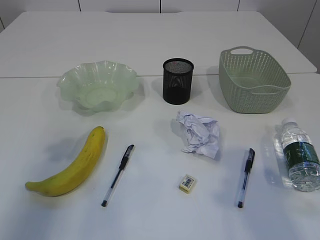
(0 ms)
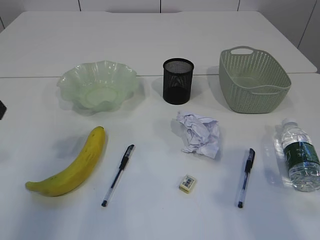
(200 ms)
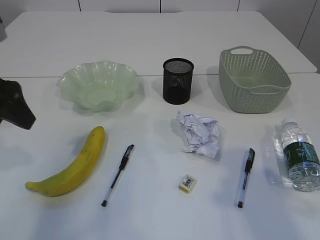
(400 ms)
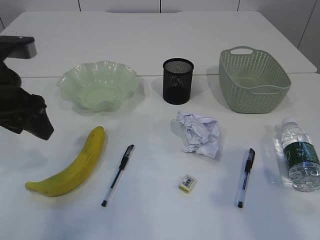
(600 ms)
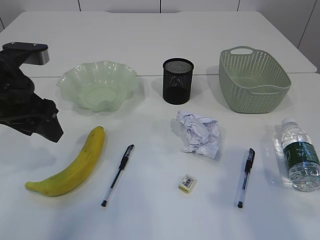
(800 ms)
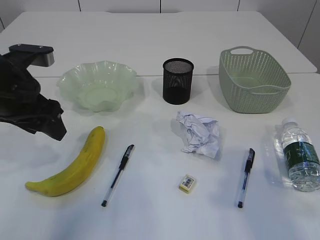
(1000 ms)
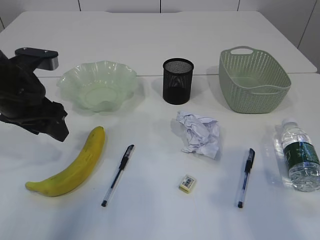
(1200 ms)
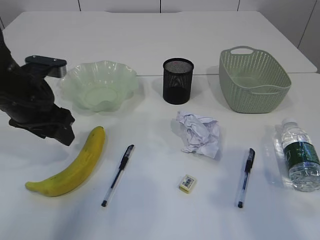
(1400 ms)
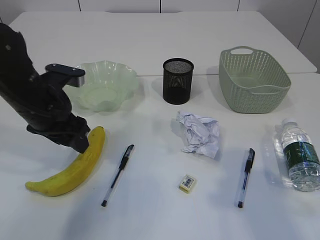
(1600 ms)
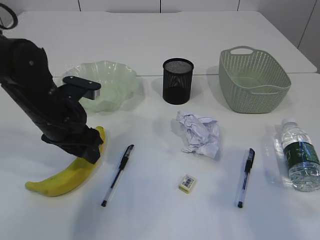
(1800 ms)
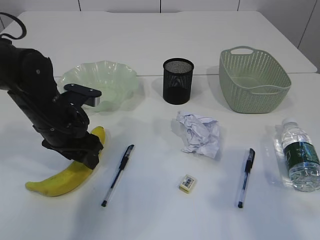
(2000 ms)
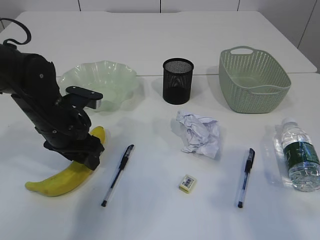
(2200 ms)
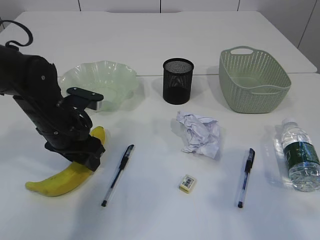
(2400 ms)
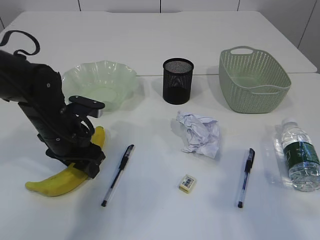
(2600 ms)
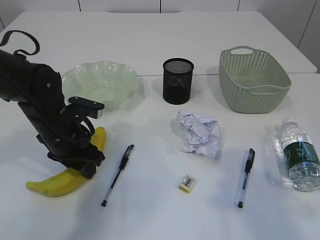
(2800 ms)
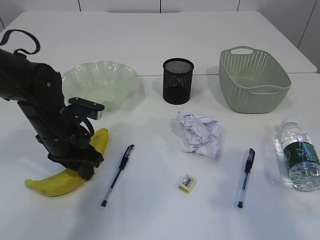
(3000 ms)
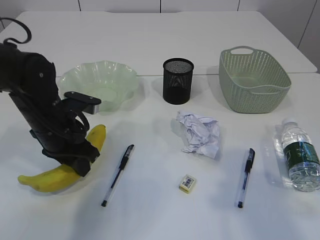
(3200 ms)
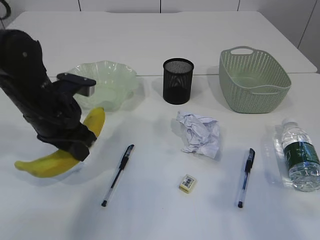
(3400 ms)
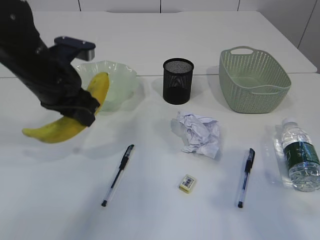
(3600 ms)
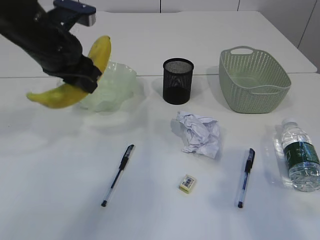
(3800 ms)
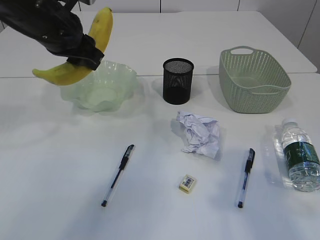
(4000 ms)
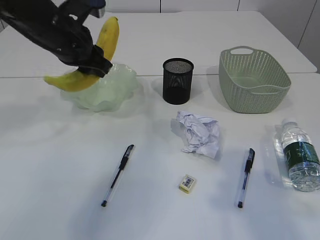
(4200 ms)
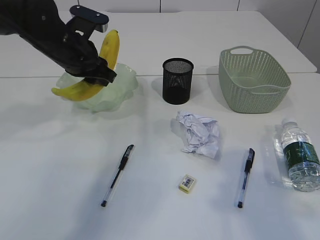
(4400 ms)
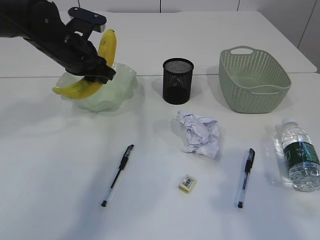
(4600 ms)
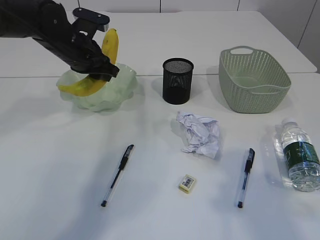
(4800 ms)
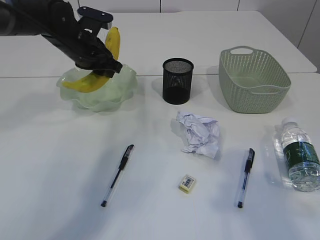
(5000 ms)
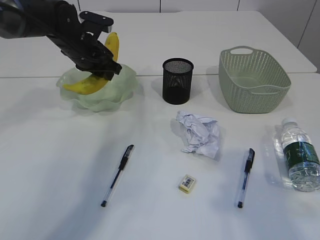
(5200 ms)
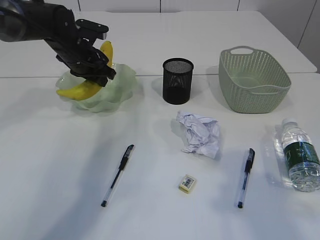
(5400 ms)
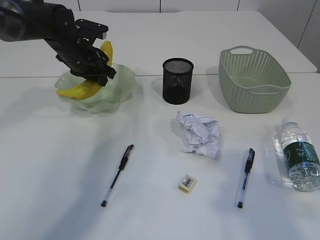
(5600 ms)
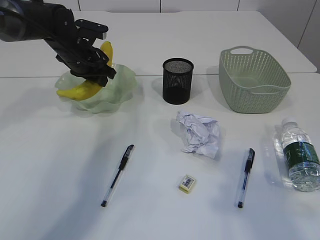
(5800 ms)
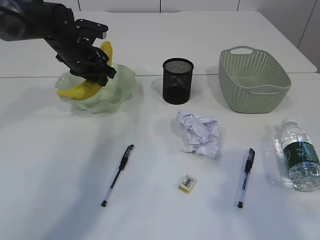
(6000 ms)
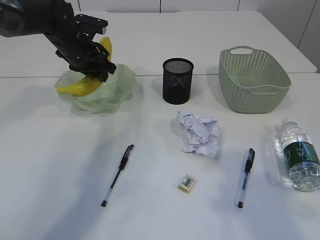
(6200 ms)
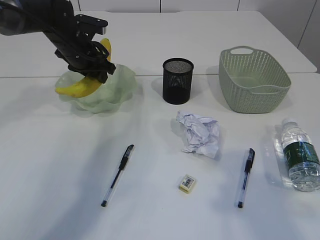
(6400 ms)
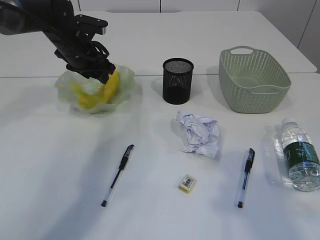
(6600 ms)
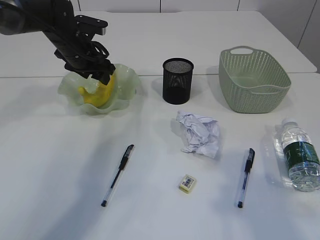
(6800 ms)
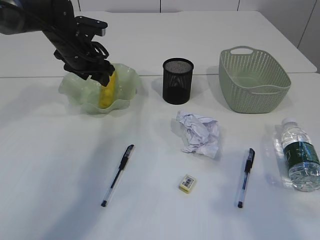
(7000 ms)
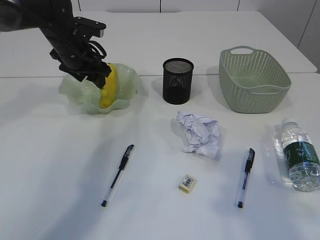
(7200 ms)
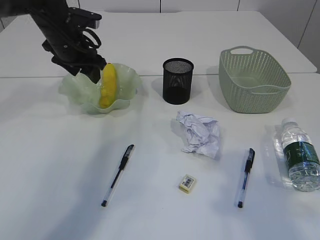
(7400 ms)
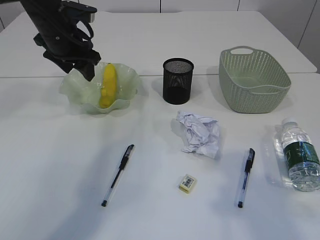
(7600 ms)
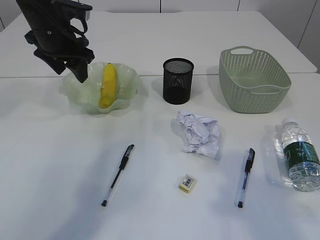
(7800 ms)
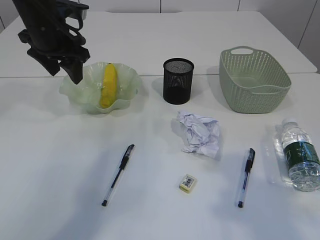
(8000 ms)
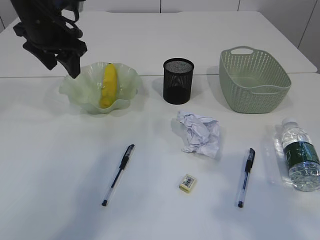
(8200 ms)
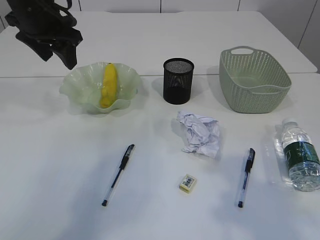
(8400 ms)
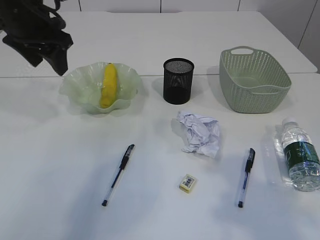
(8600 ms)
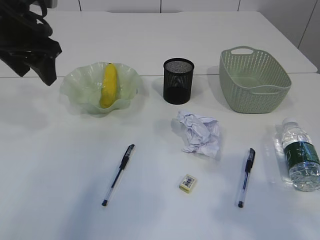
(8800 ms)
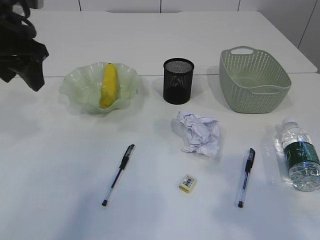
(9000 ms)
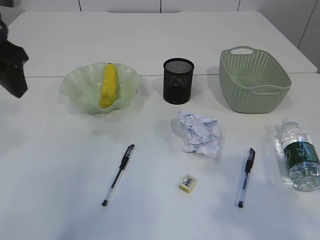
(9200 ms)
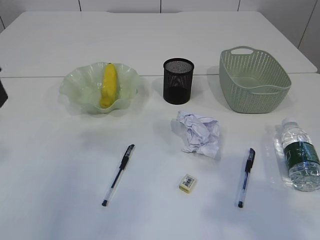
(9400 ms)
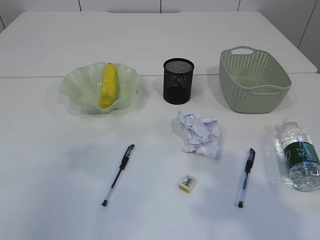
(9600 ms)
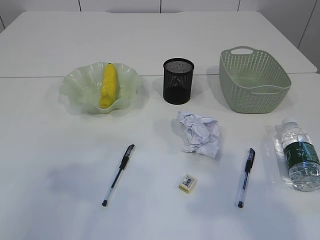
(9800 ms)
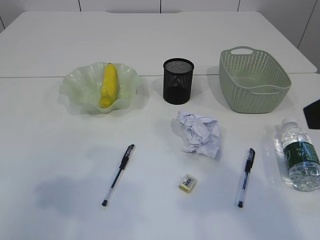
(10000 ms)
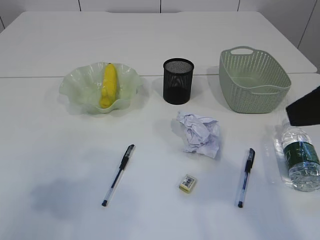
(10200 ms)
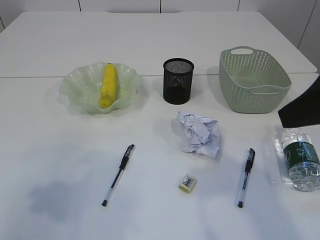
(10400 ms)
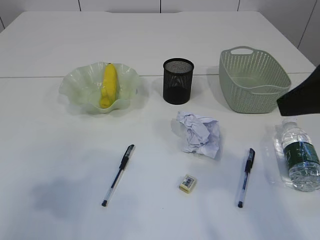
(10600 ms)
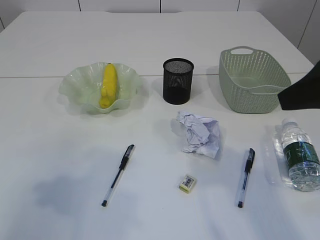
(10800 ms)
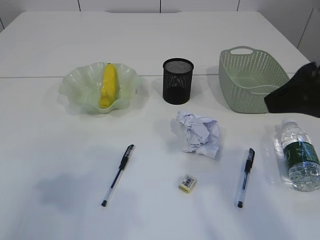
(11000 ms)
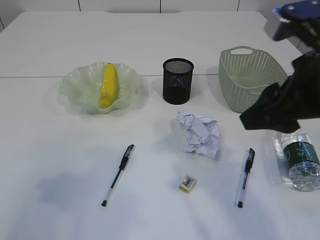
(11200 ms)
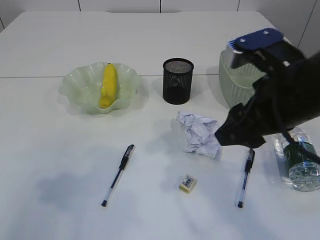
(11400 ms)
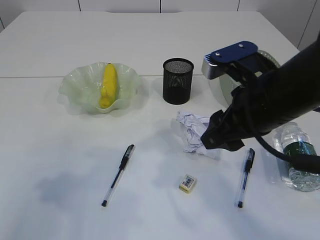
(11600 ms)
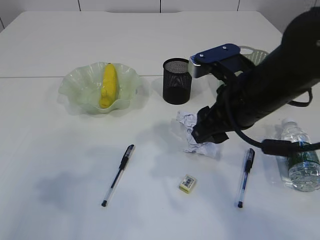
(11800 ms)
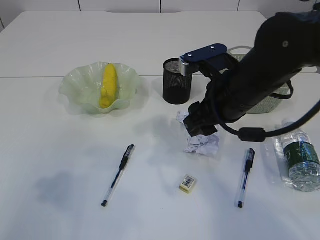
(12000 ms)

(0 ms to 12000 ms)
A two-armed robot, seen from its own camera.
Step, 3600 ms - 7800 ms: Place the banana in the plate.
0 ms - 1600 ms: The left gripper travels downward, to the right and forward by approximately 20 cm.
1600 ms - 3000 ms: The left gripper moves downward, about 5 cm, and closes its fingers.
3000 ms - 4400 ms: The left gripper heads upward and forward, covering about 15 cm.
4400 ms - 6000 ms: The left gripper is displaced forward by some 10 cm.
6000 ms - 7600 ms: The left gripper goes about 5 cm upward, and opens up.
7600 ms - 9000 ms: The left gripper is displaced backward and upward by approximately 15 cm.
9000 ms - 10400 ms: The right gripper goes about 5 cm forward; the left gripper goes some 20 cm backward.
10400 ms - 12000 ms: The right gripper is displaced forward, downward and to the left by roughly 20 cm.

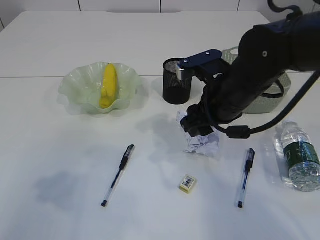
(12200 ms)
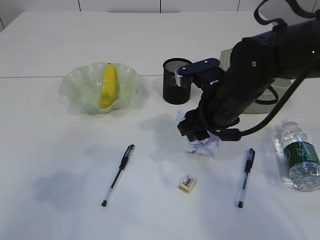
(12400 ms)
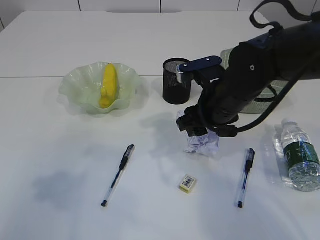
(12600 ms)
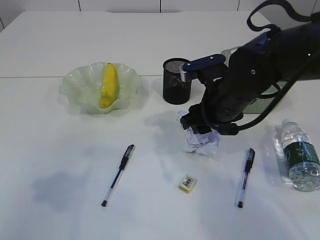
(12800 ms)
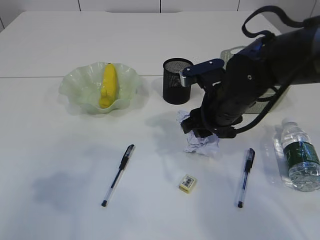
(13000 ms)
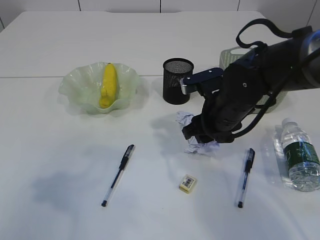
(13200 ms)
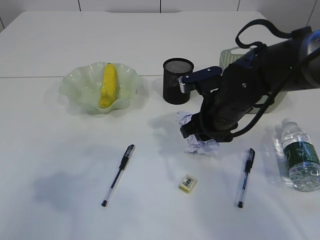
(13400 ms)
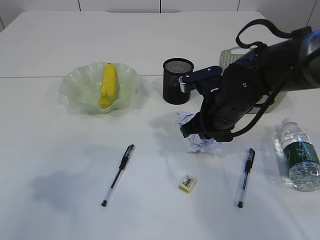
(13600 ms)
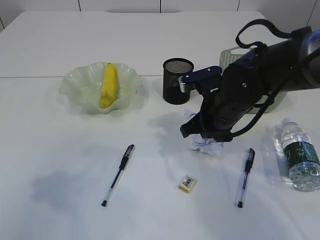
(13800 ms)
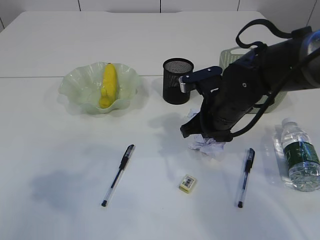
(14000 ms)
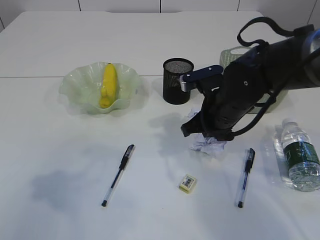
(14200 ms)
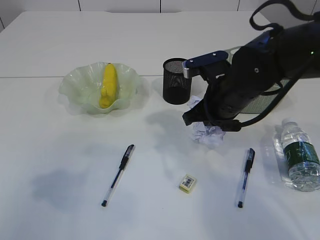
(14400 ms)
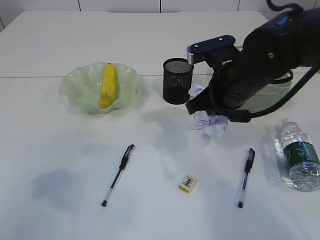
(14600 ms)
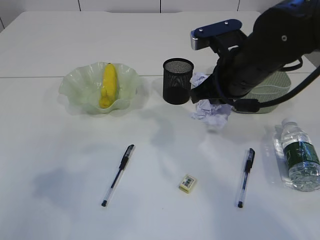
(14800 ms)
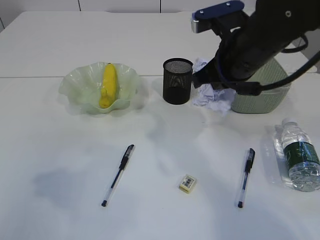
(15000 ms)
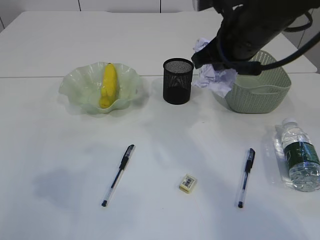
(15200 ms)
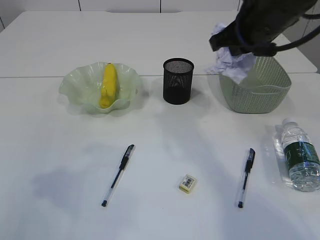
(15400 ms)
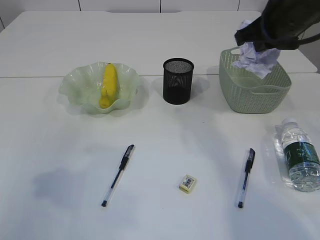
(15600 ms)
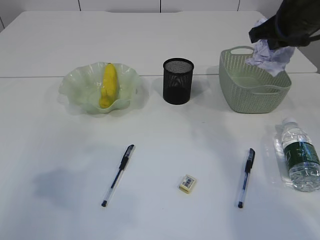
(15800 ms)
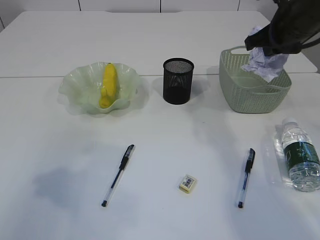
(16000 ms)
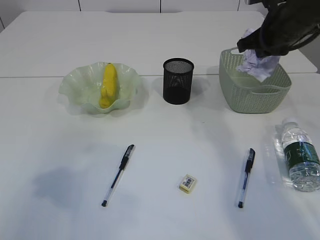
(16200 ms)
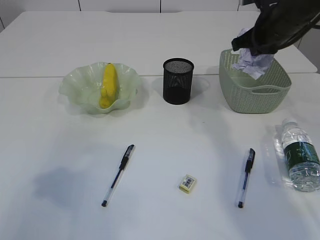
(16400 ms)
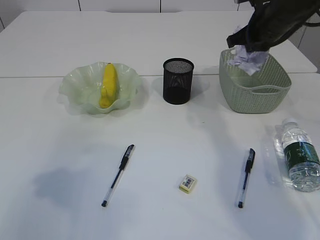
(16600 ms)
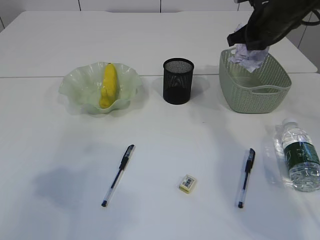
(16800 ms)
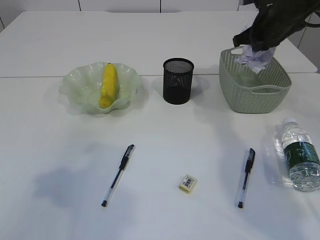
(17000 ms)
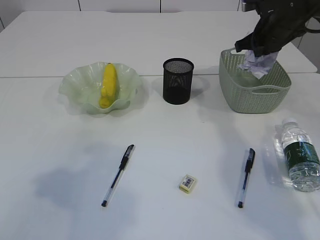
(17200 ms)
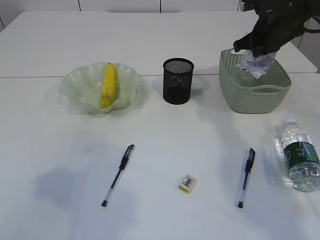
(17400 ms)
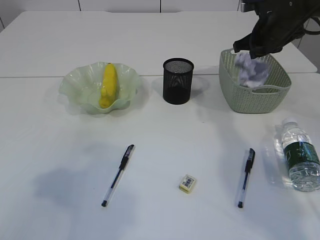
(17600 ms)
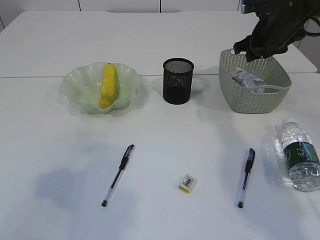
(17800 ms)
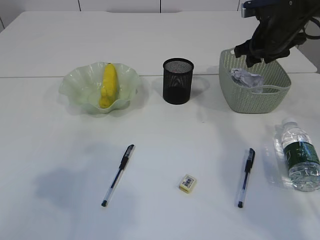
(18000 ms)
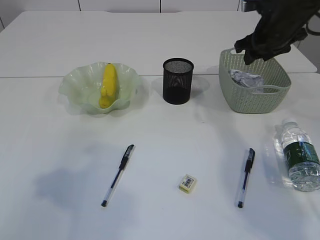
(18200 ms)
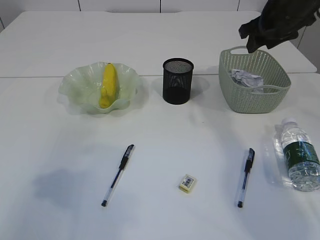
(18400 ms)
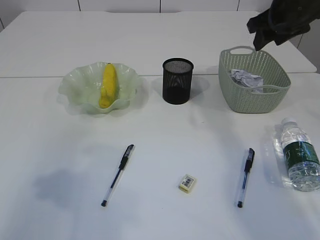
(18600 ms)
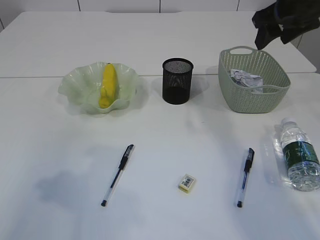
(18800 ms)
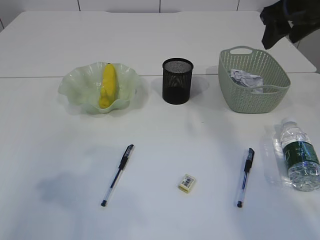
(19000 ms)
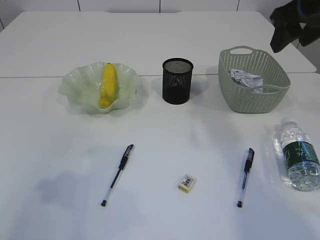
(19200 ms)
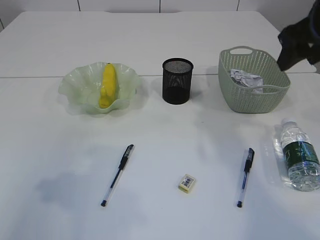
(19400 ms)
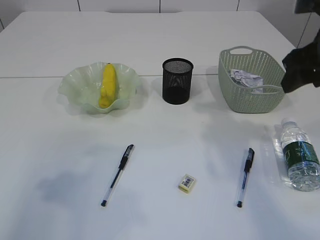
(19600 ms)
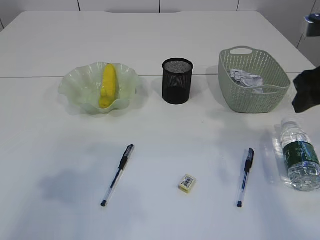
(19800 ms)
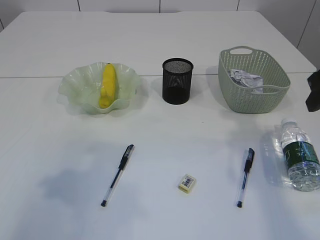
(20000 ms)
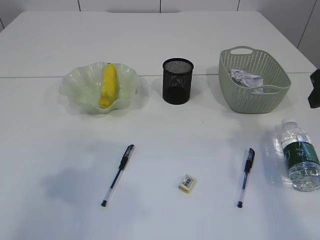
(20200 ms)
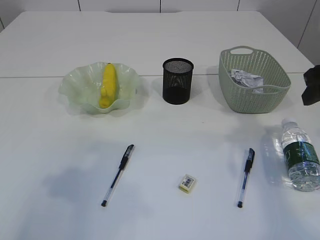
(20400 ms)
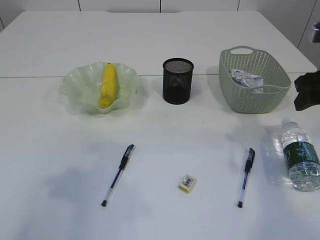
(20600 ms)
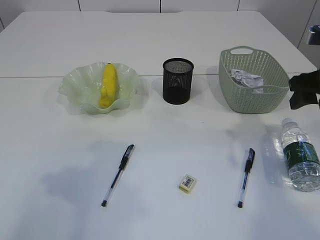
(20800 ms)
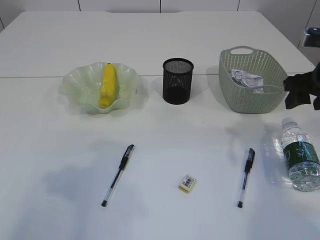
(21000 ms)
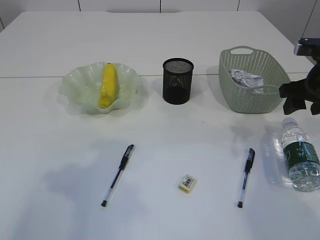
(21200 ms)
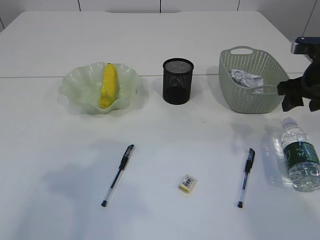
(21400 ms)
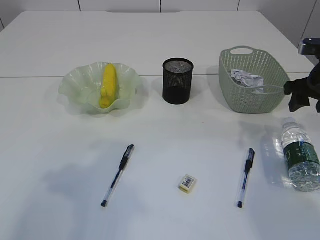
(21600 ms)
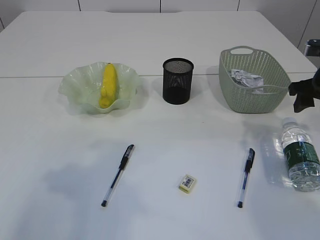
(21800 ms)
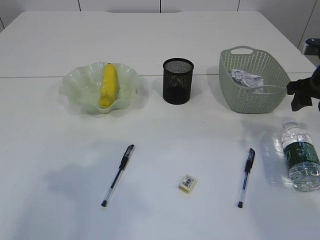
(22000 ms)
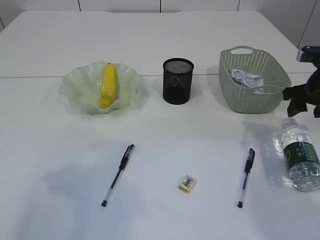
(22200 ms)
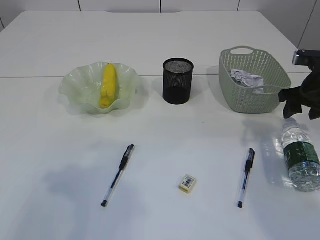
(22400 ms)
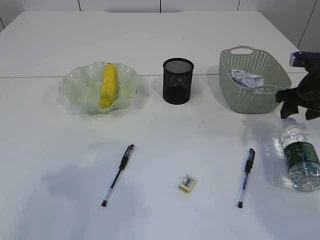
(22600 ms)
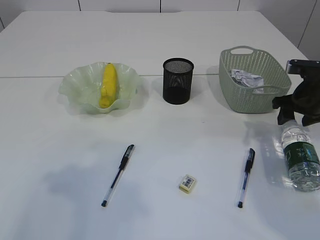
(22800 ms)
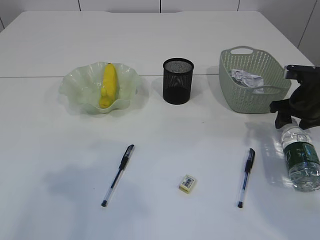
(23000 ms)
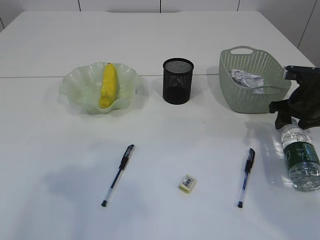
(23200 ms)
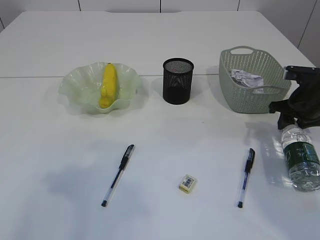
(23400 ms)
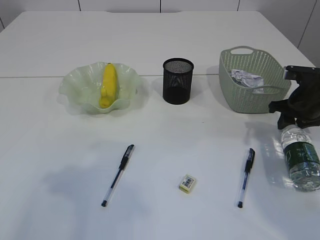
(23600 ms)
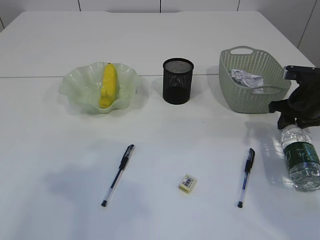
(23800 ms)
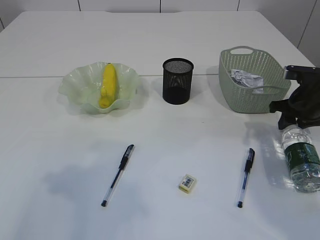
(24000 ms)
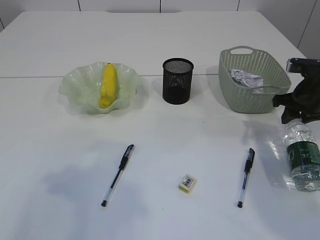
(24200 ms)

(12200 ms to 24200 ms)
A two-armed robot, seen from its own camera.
Step, 12200 ms - 14600 ms: Pick up the waste paper.
Step, 14800 ms - 18400 ms: Place the waste paper in the basket.
12200 ms - 13800 ms: The right gripper moves approximately 5 cm, and closes.
13800 ms - 15200 ms: The right gripper travels upward by about 15 cm.
15200 ms - 16600 ms: The right gripper travels forward and to the right by roughly 15 cm.
16600 ms - 18200 ms: The right gripper opens its fingers.
18200 ms - 19800 ms: The right gripper heads backward, covering approximately 15 cm.
19800 ms - 21200 ms: The right gripper shifts approximately 10 cm downward and forward.
21200 ms - 22600 ms: The right gripper travels downward by about 5 cm.
22600 ms - 24200 ms: The right gripper closes its fingers.
